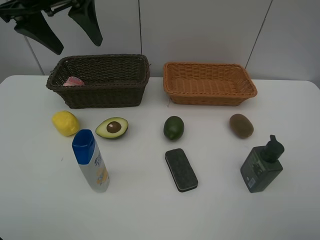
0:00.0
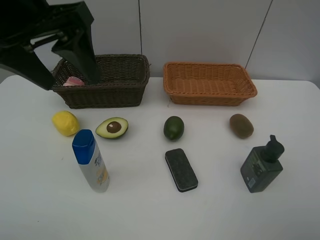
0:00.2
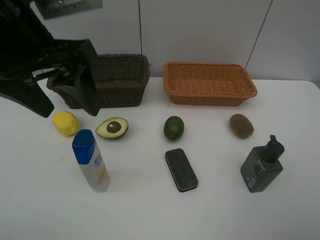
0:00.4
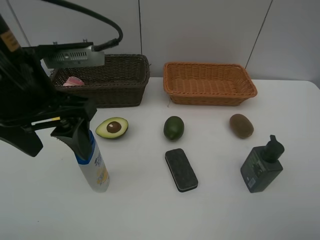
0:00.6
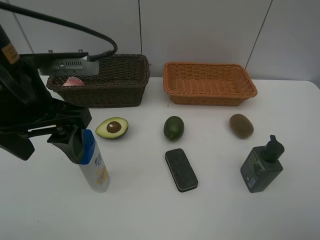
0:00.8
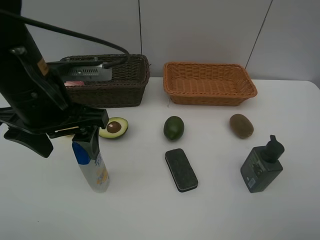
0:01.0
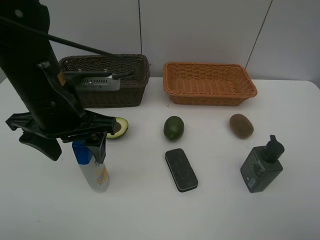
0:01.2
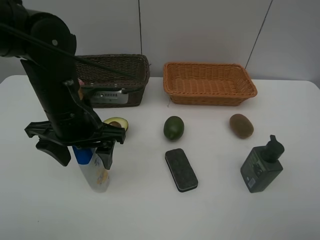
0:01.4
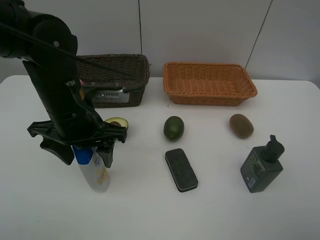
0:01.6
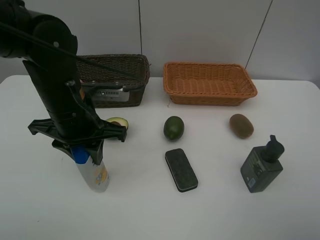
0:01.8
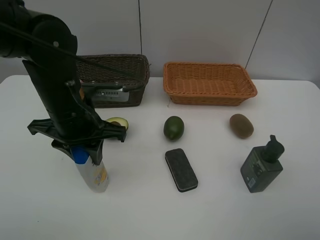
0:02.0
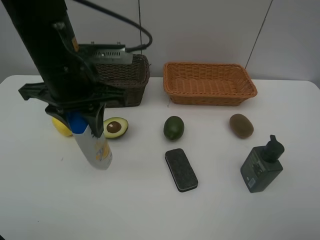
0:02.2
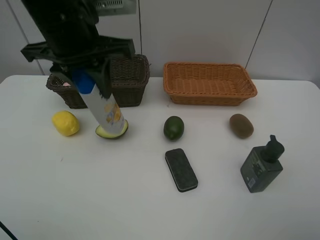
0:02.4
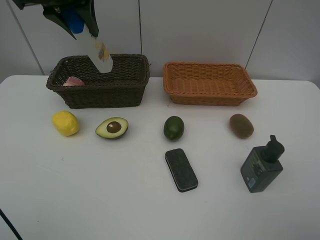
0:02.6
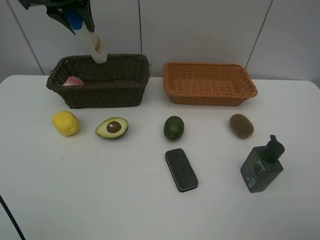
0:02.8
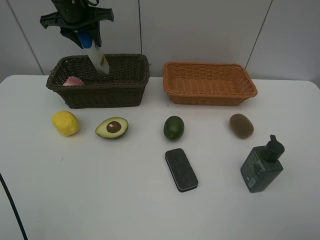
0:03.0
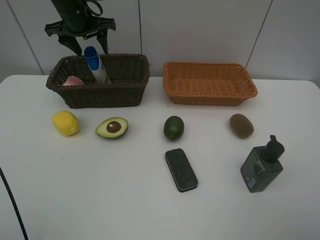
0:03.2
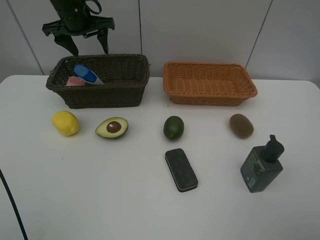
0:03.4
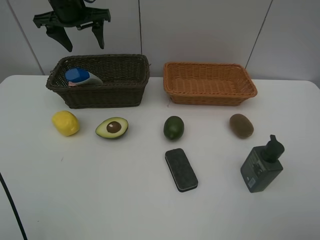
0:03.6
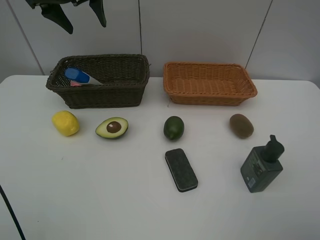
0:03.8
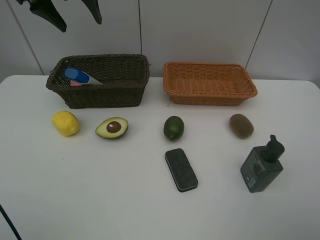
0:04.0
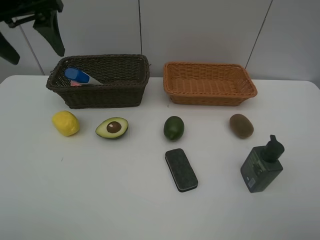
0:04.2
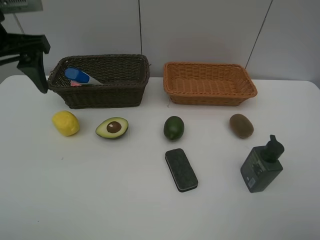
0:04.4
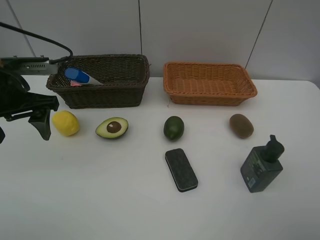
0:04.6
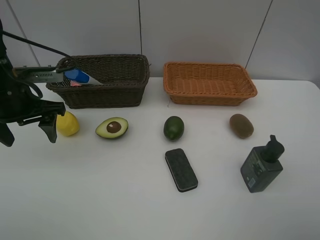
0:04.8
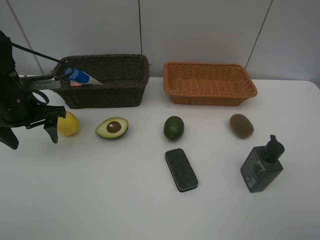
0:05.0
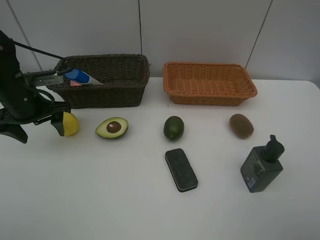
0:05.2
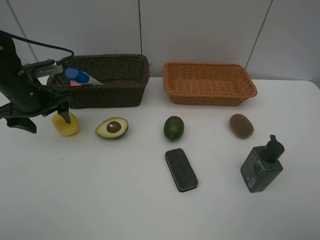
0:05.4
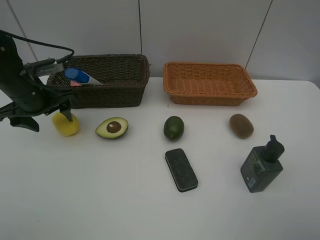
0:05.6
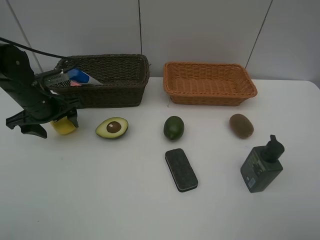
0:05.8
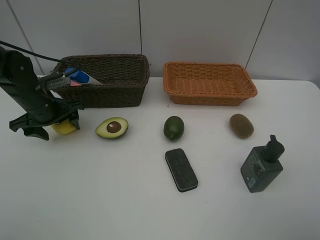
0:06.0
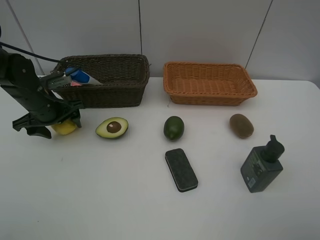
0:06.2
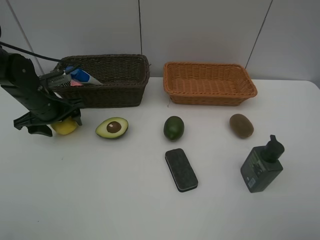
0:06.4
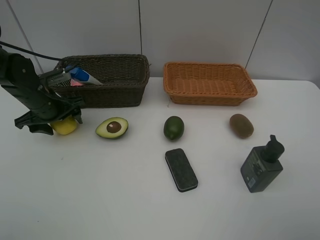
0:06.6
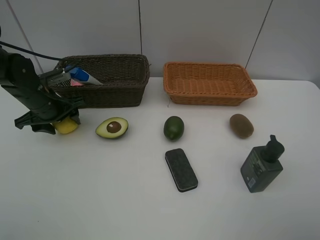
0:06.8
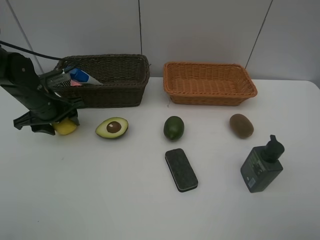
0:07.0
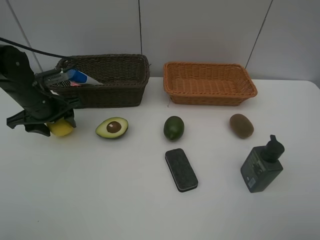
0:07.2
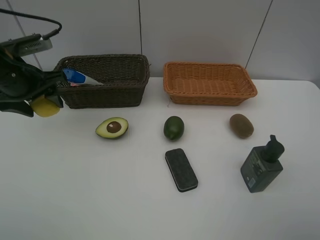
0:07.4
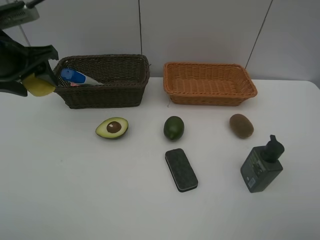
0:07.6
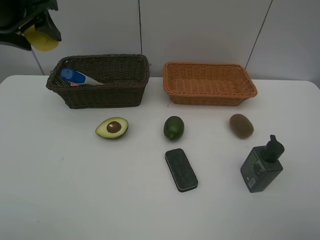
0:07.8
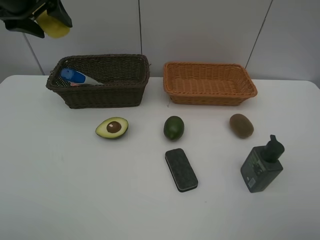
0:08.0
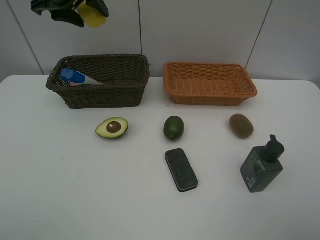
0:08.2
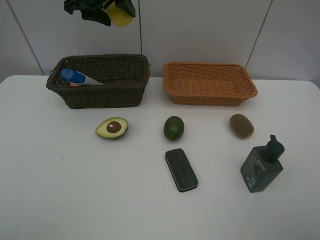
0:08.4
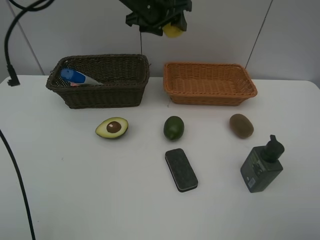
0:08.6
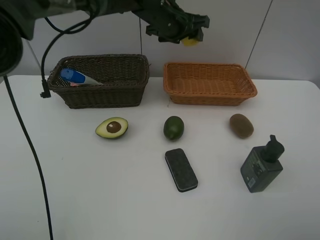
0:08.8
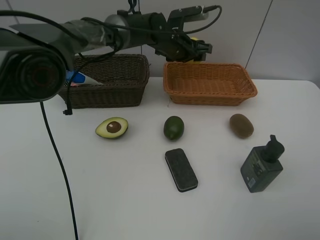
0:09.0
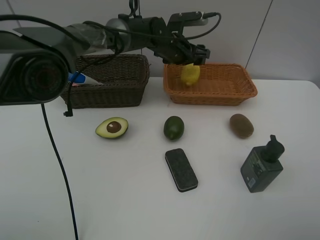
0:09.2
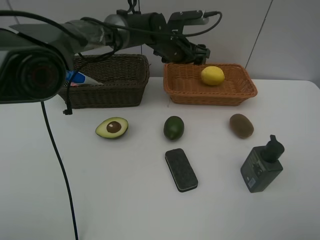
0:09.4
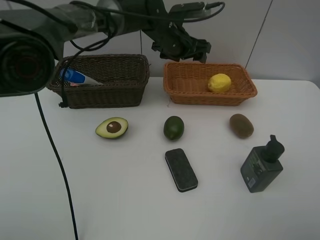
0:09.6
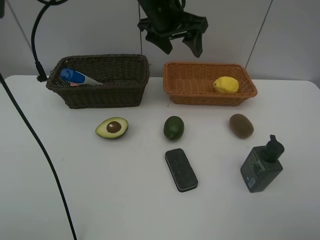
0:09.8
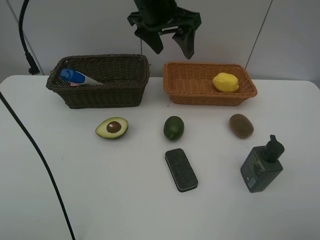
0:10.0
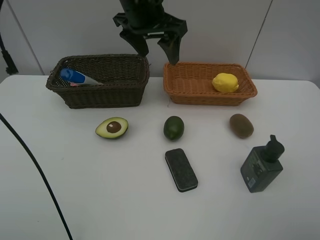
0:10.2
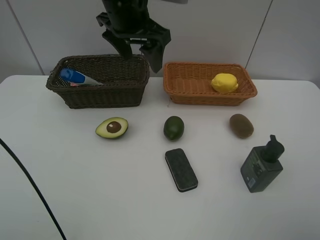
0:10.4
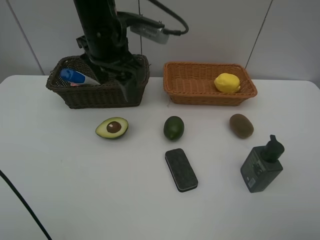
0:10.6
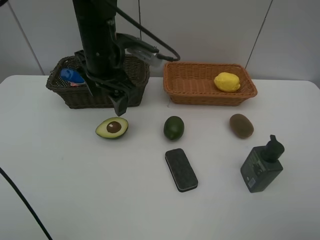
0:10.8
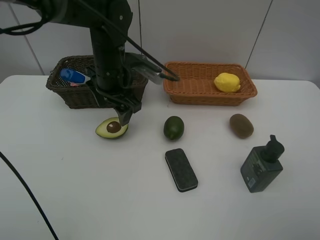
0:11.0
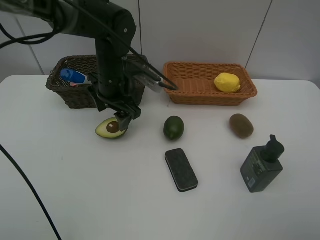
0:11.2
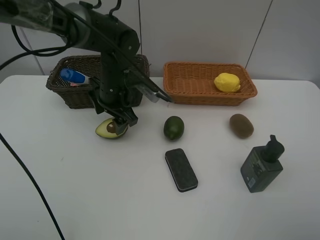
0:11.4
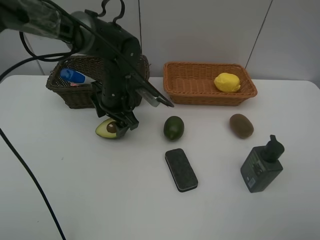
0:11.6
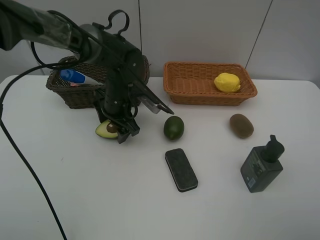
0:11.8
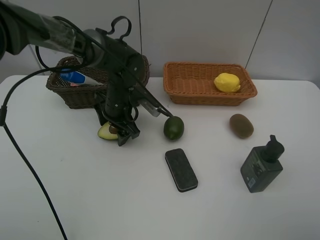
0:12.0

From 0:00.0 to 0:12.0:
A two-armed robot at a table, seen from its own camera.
Task of the whole recording: Place multiple objects separately in different baskets.
Step, from 0:00.0 to 0:02.0: Pick up the shampoo with left gripper.
Step, from 0:02.2 to 0:03.2: Place the shampoo in the dark basket with left gripper.
Step, from 0:03.4 to 0:07.2: Pick up the lemon with left gripper.
Step, from 0:07.4 to 0:09.2: Place the lemon in the light basket with left gripper.
From 0:00.0 to 0:01.6: The left gripper goes some 20 cm downward and backward.
From 0:01.6 to 0:03.0: The left gripper heads forward, covering some 25 cm.
From 0:03.0 to 0:04.4: The left gripper travels backward by some 20 cm, and opens its fingers.
From 0:04.4 to 0:06.0: The left gripper shifts about 20 cm downward and forward.
From 0:06.0 to 0:07.6: The left gripper heads upward, covering approximately 15 cm.
From 0:07.6 to 0:09.0: The left gripper is displaced to the right and forward by about 35 cm.
From 0:09.0 to 0:10.4: The left gripper is displaced upward, backward and to the left by about 20 cm.
From 0:10.4 to 0:12.0: The left gripper goes approximately 20 cm downward.

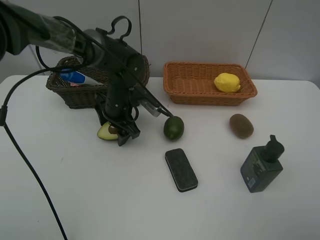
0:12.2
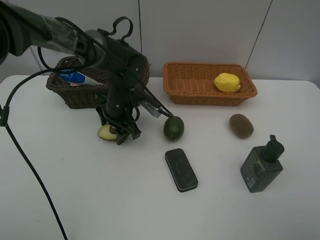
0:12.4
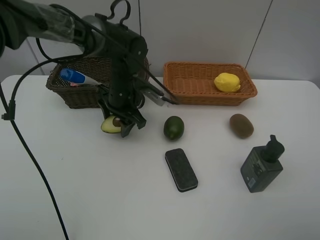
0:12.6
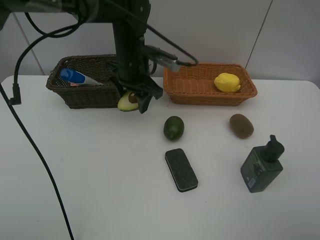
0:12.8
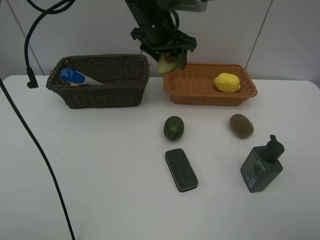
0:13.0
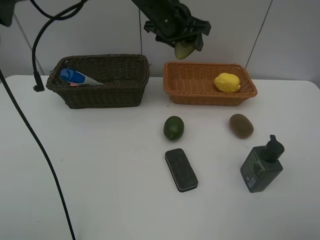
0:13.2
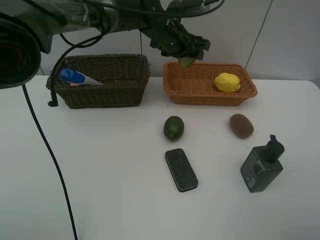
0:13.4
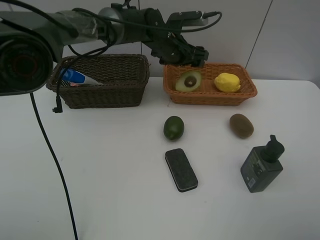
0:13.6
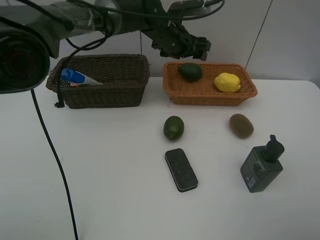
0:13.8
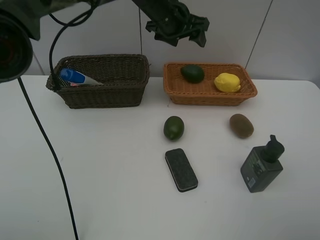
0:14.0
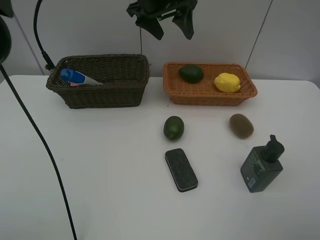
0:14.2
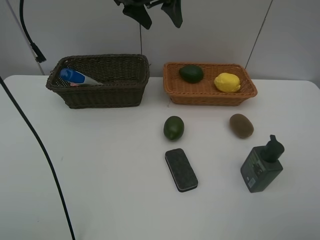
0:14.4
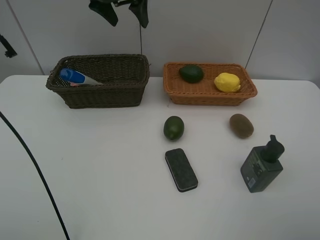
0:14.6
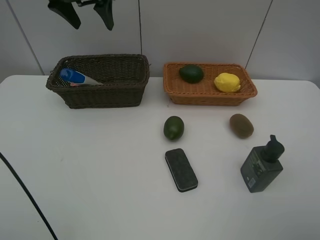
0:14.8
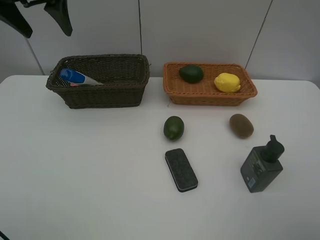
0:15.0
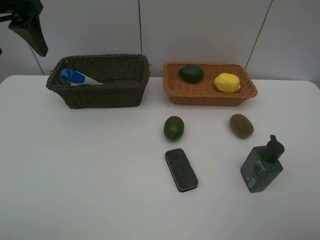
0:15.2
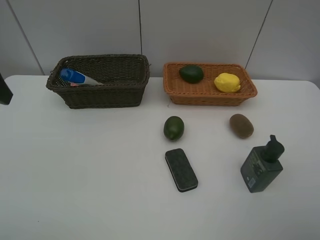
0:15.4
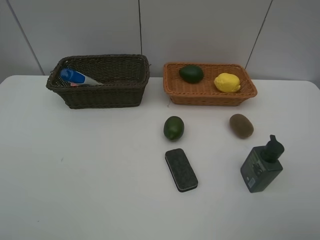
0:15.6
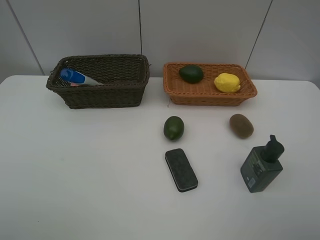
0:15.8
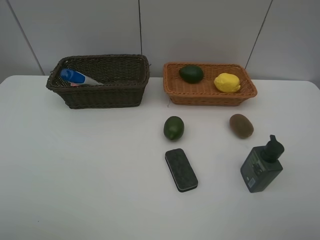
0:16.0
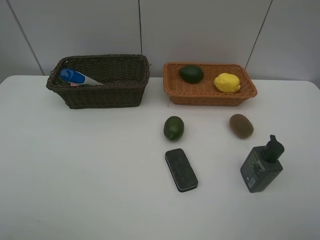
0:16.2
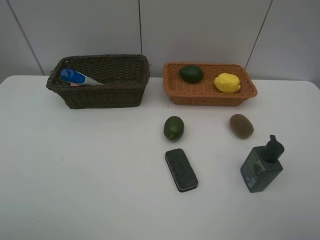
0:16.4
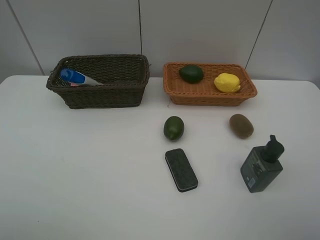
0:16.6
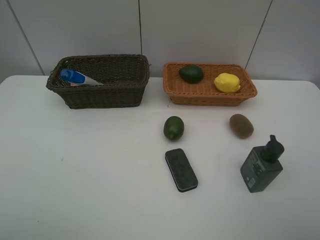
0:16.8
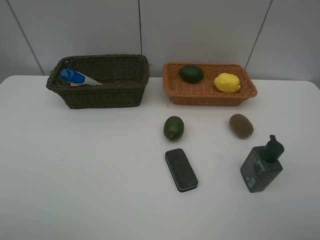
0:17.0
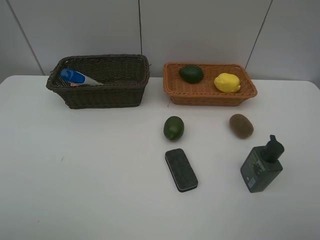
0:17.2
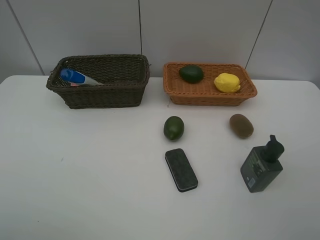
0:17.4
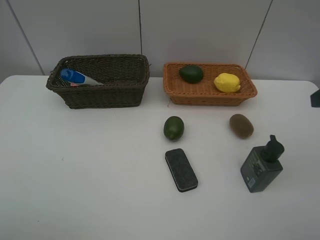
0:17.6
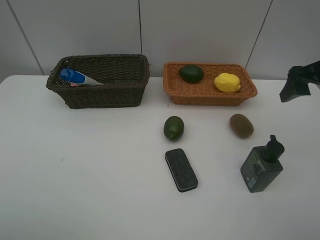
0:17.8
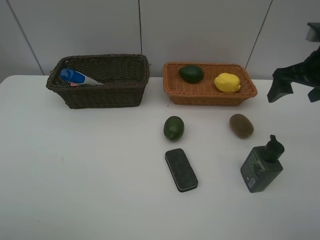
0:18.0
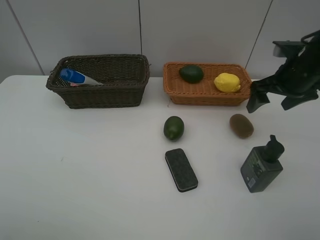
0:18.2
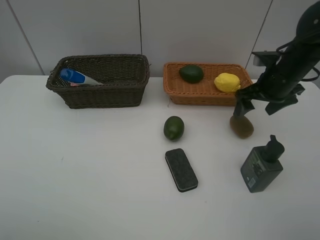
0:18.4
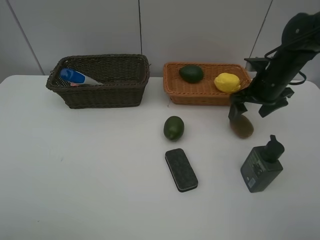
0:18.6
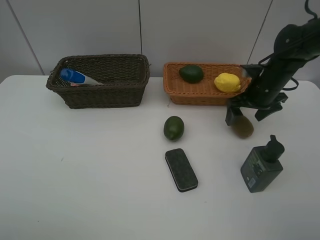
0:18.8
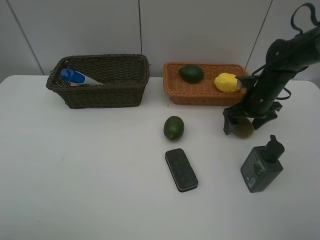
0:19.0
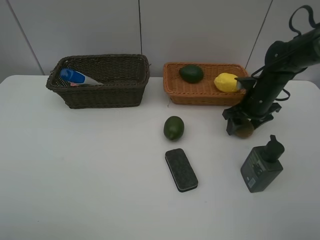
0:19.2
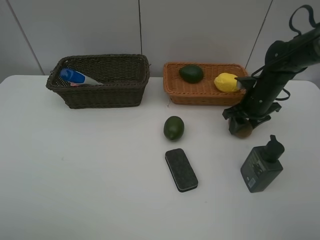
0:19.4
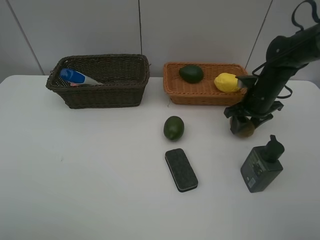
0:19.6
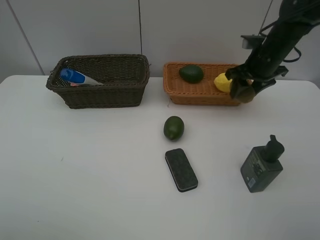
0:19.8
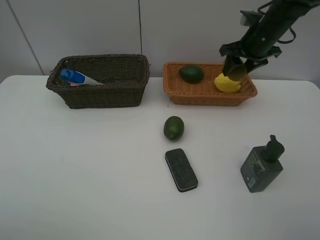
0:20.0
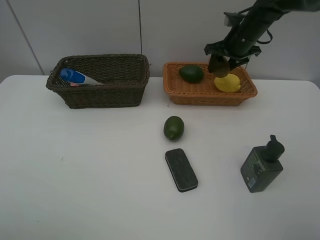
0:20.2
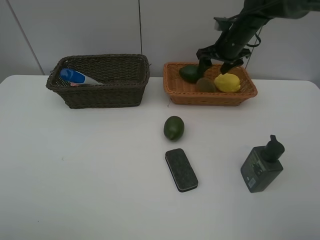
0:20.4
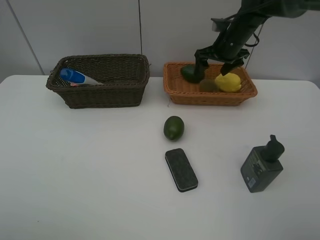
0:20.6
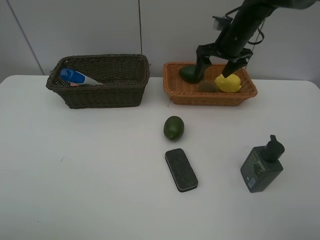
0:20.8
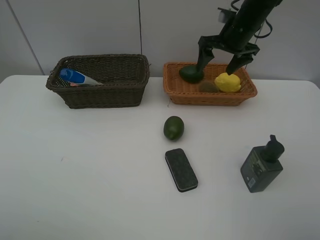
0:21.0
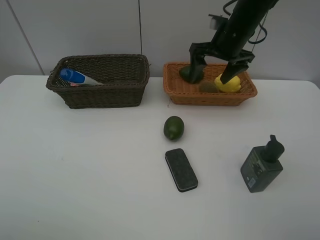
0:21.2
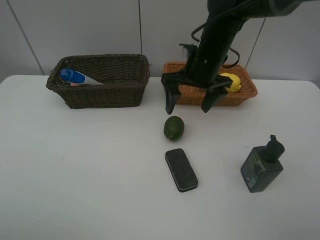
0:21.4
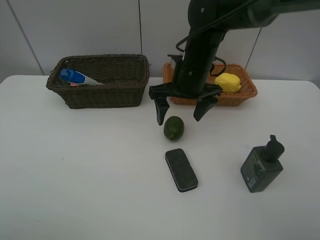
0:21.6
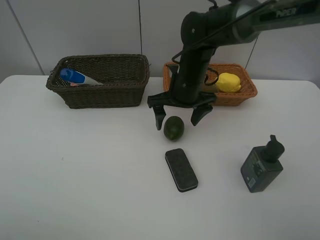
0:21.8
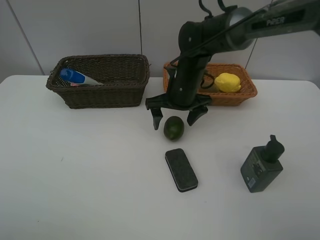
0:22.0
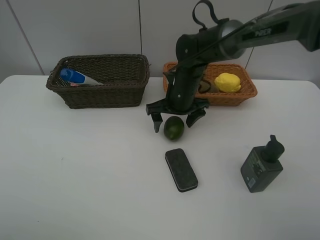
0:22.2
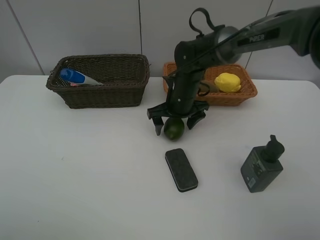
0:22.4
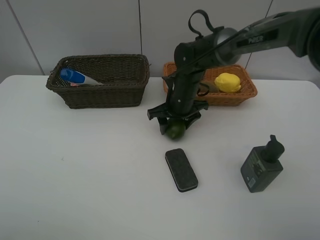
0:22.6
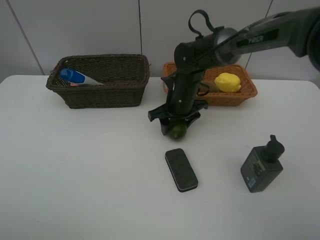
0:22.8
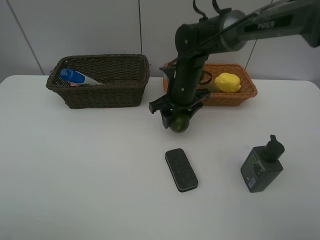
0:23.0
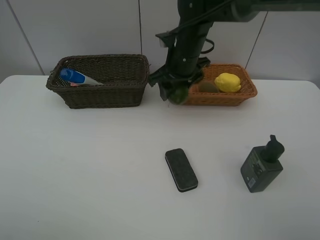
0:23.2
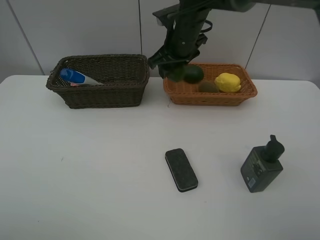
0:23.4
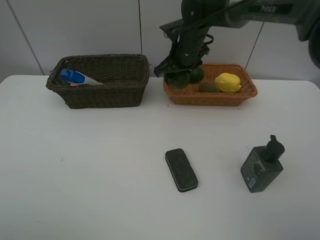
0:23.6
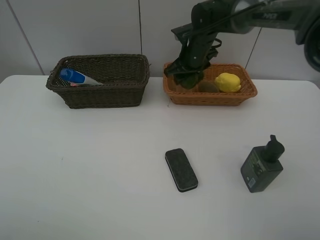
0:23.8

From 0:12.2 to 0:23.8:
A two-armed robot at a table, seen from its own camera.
Task of the whole recording: Place multiple objects separately in different baskets.
Step, from 0:12.8 to 0:13.6: Place the avocado in the light basket with left gripper.
Step, from 0:13.8 to 0:19.6: Pick up kiwi with right gripper.
Step, from 0:19.8 to 0:20.6: Place the kiwi in the light basket with right gripper.
Step, from 0:20.8 to 0:23.0: Pick up the lime with right gripper.
From 0:12.2 to 0:13.6: The left gripper shifts some 15 cm to the right, forward and upward.
From 0:13.6 to 0:15.0: The left gripper goes roughly 35 cm to the left, upward and backward.
From 0:15.0 to 0:16.6: The left gripper goes roughly 35 cm backward.
From 0:16.6 to 0:18.0: The right gripper goes some 30 cm forward.
From 0:18.0 to 0:19.4: The right gripper moves downward and forward, some 15 cm, and closes.
From 0:19.4 to 0:21.0: The right gripper shifts about 15 cm upward, to the left and forward, and opens.
From 0:21.0 to 0:22.4: The right gripper heads downward, to the left and backward, covering approximately 20 cm.
From 0:22.4 to 0:23.8: The right gripper goes about 10 cm forward and upward, and closes.
